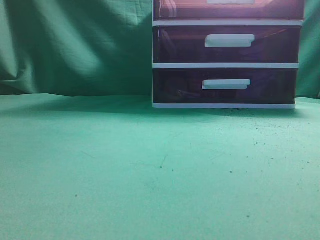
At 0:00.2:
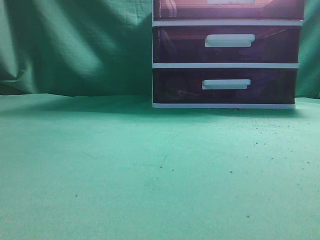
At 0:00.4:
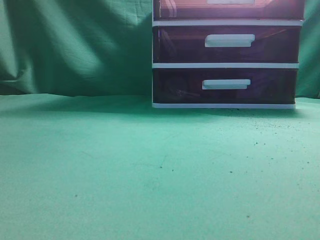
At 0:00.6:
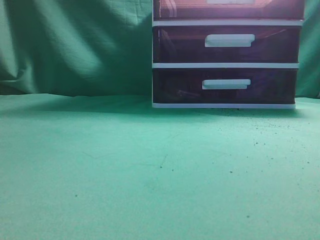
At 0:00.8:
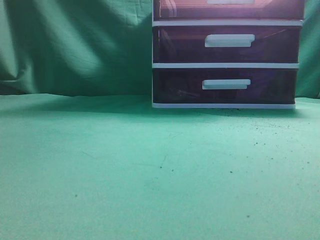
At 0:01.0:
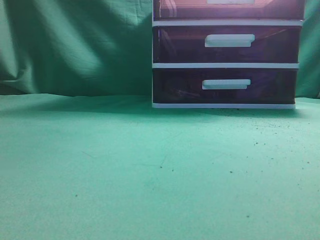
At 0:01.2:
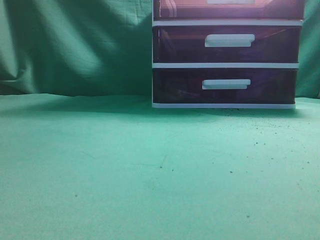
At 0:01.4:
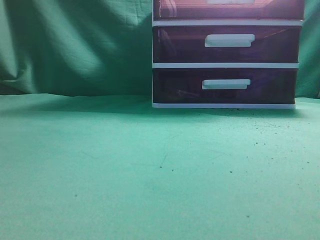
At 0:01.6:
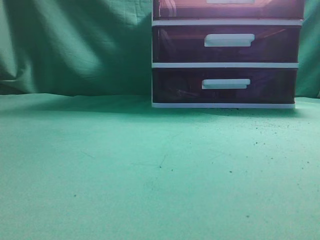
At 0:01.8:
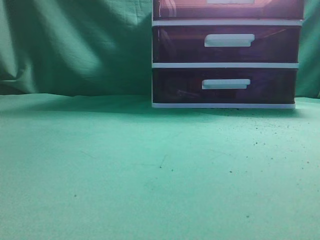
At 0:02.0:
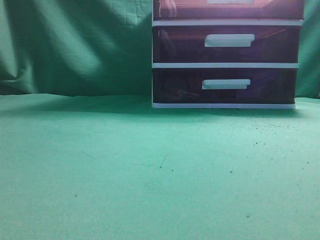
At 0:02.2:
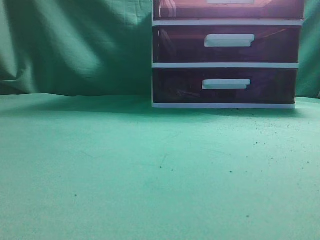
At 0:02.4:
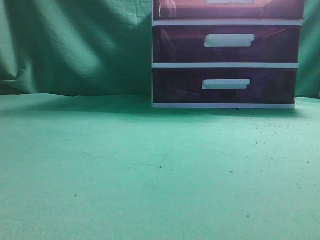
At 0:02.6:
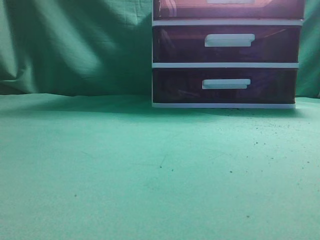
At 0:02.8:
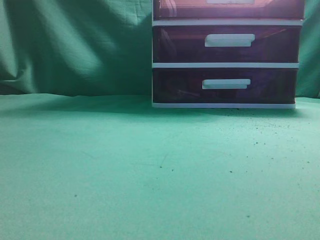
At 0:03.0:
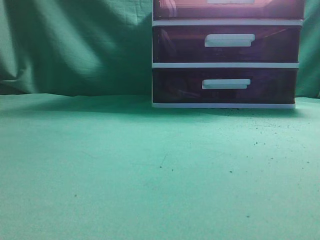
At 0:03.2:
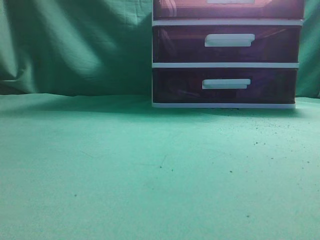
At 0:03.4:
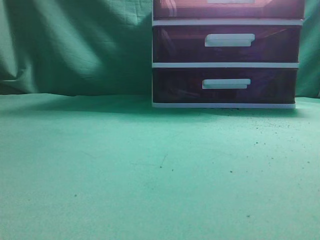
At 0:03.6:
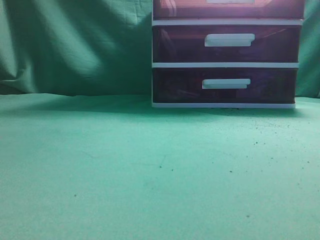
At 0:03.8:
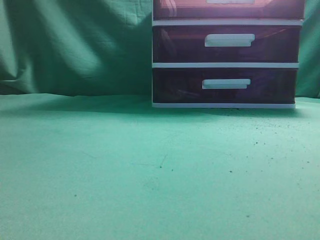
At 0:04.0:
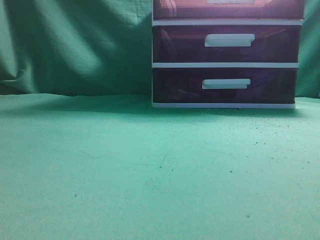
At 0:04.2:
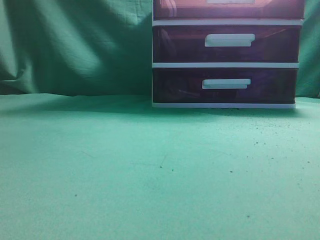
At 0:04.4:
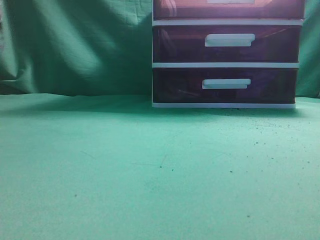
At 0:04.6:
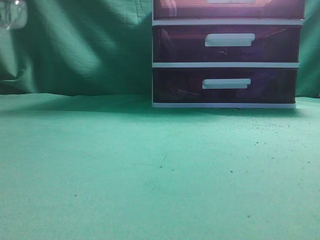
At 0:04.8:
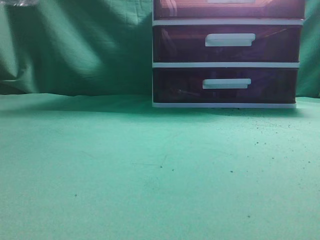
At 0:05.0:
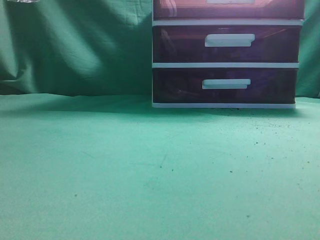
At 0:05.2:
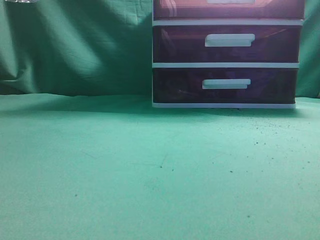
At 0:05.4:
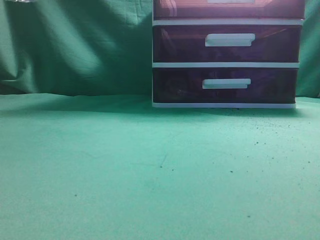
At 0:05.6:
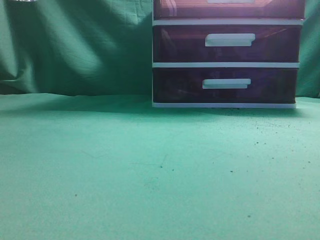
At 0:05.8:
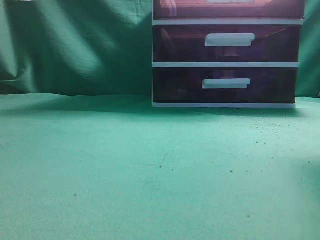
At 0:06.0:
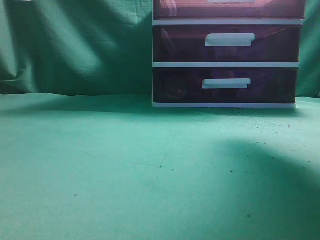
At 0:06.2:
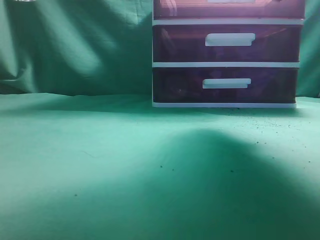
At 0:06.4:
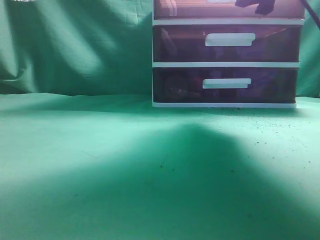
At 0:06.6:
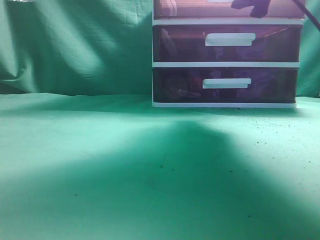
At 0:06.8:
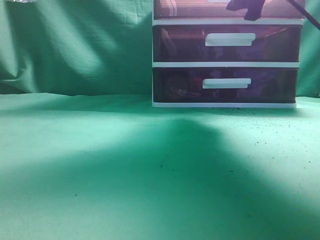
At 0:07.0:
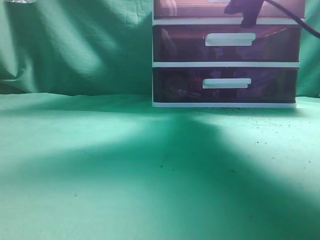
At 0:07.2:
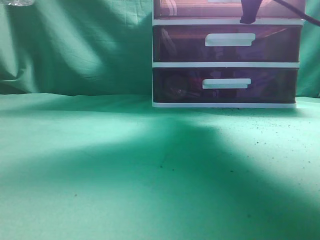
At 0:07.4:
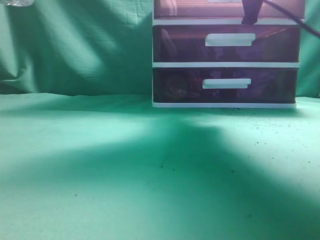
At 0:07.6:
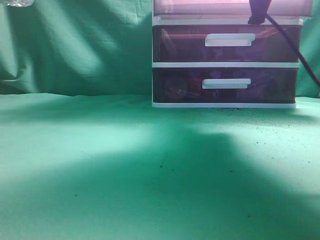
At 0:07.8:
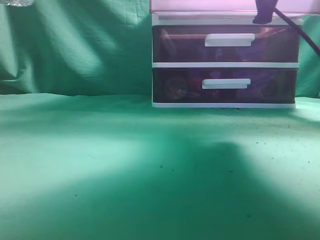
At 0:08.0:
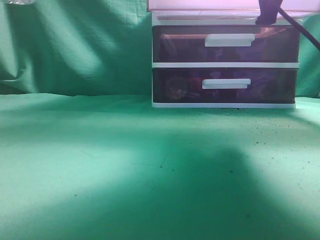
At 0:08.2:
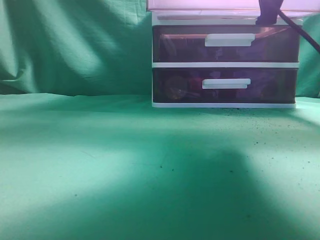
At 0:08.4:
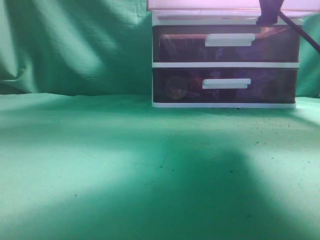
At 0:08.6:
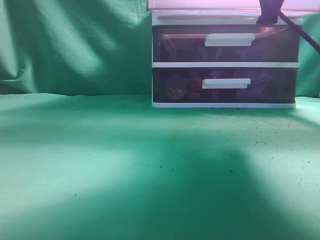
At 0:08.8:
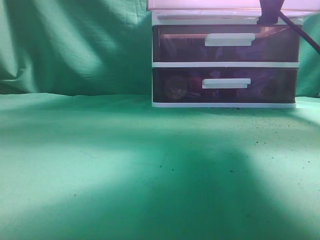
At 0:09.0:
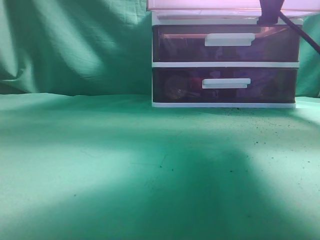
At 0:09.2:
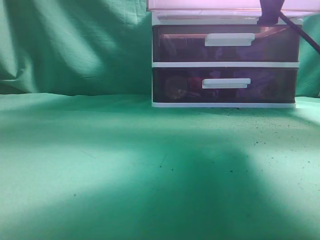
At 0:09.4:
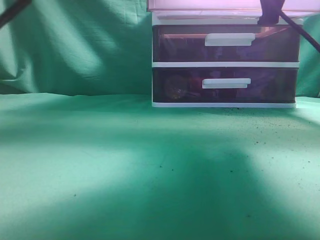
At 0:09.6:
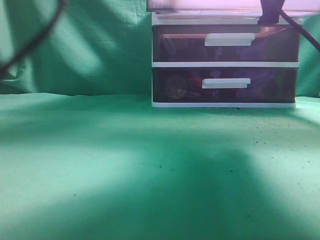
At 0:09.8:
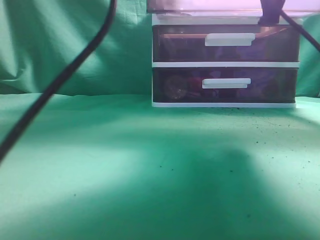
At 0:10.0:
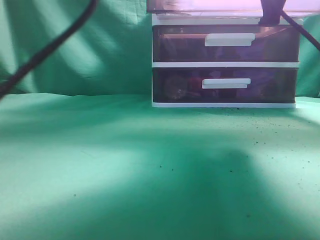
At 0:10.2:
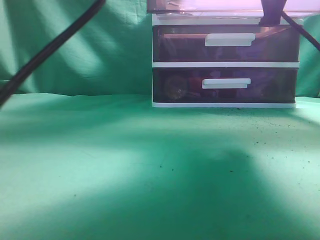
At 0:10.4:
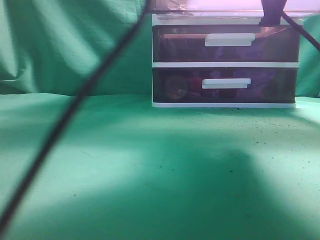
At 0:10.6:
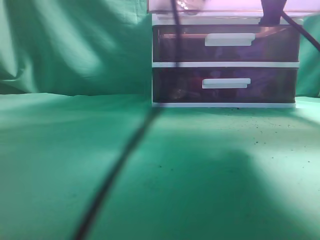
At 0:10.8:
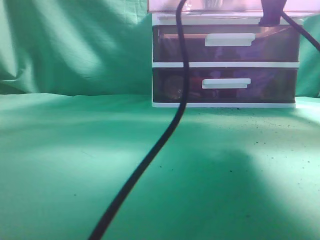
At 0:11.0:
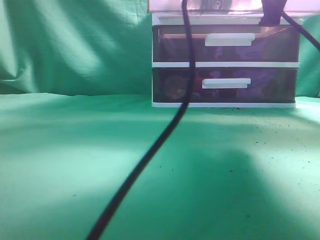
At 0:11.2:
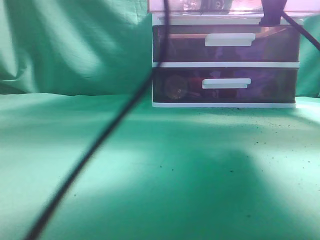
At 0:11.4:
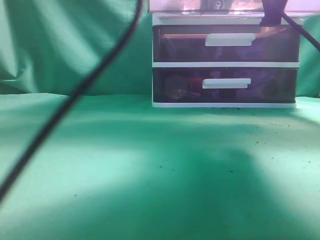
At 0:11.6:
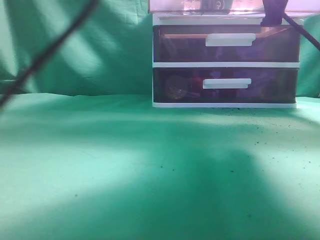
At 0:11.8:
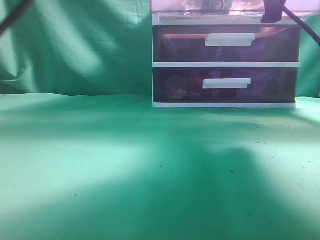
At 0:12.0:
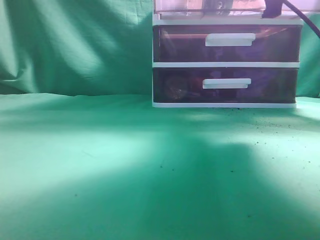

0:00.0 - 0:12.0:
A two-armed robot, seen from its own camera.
Task of the whole recording: place the water bottle into the drawer.
Step, 0:00.0 - 0:08.4: Open the drawer.
Step, 0:08.8 - 0:11.0: Place the water bottle inside the drawer.
0:04.4 - 0:06.0: The left gripper shifts about 10 cm backward, to the right and upward, while the right gripper shifts some 30 cm forward and upward, and opens up.
0:06.0 - 0:07.6: The right gripper heads downward and to the left, covering roughly 10 cm, and closes its fingers.
0:07.6 - 0:09.0: The left gripper travels upward, to the right and forward by roughly 25 cm, while the right gripper shifts roughly 10 cm backward.
0:09.0 - 0:10.4: The left gripper travels downward, to the right and forward by roughly 15 cm, and opens its fingers.
0:10.4 - 0:12.0: The left gripper goes about 20 cm backward and to the left, and closes up.

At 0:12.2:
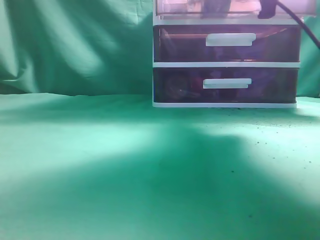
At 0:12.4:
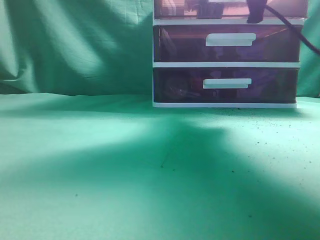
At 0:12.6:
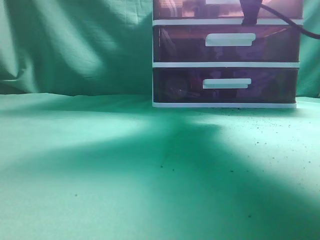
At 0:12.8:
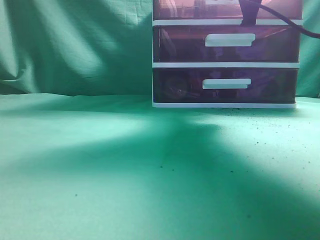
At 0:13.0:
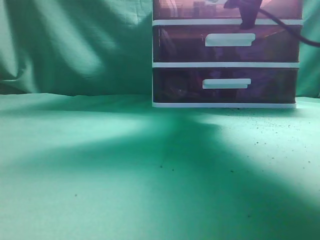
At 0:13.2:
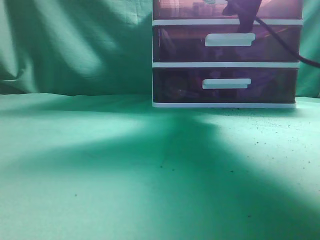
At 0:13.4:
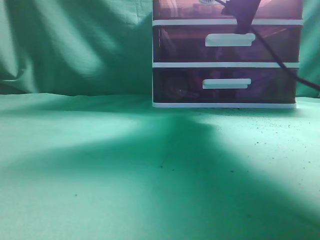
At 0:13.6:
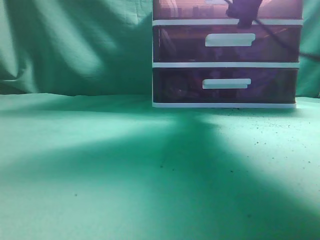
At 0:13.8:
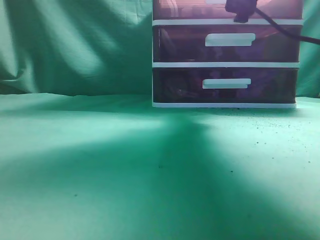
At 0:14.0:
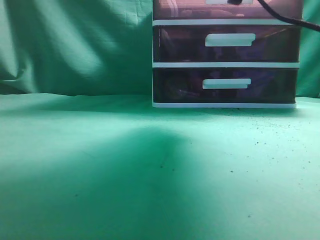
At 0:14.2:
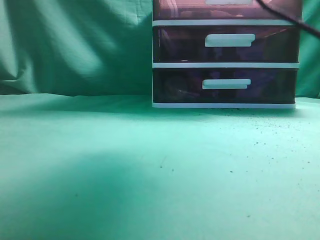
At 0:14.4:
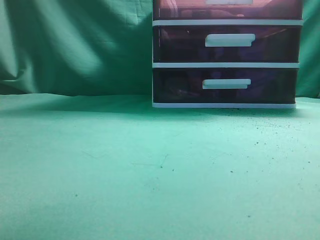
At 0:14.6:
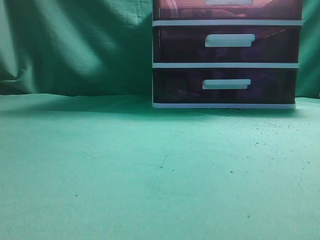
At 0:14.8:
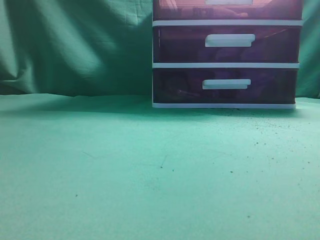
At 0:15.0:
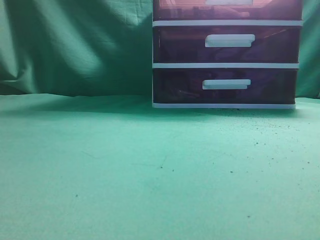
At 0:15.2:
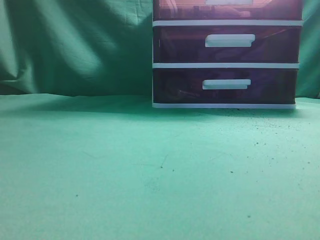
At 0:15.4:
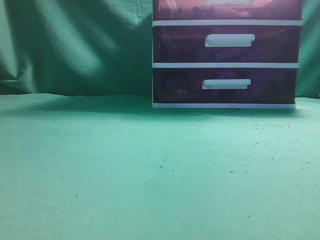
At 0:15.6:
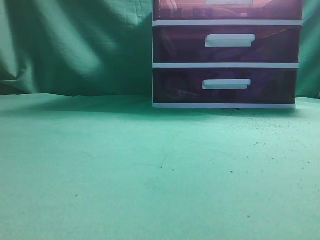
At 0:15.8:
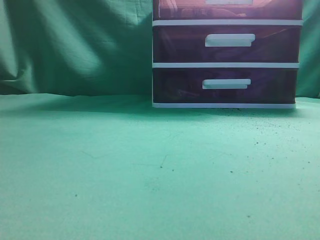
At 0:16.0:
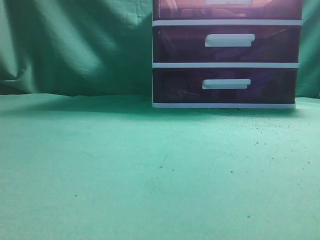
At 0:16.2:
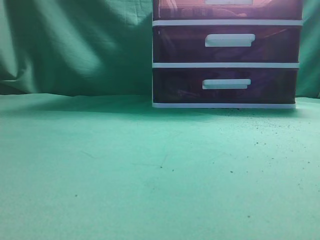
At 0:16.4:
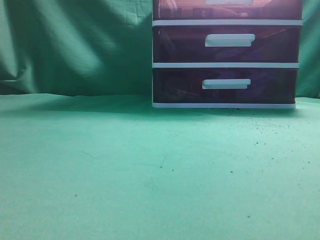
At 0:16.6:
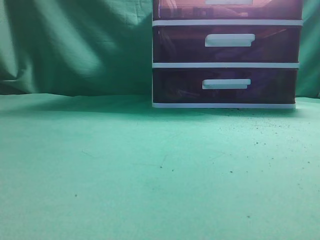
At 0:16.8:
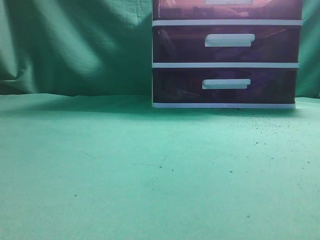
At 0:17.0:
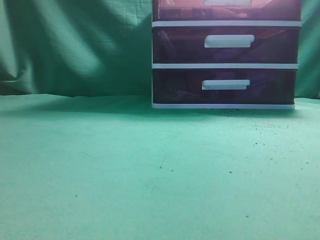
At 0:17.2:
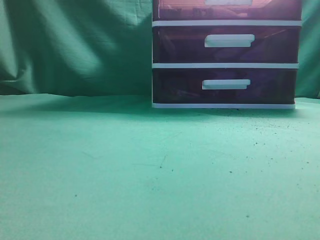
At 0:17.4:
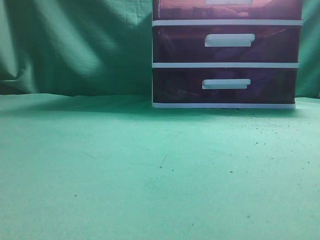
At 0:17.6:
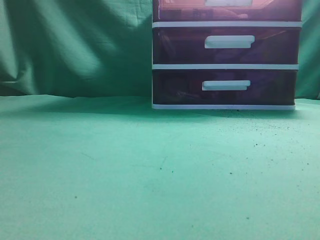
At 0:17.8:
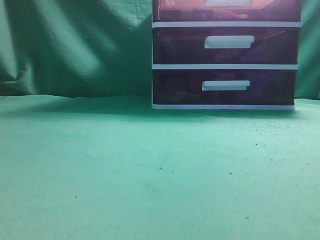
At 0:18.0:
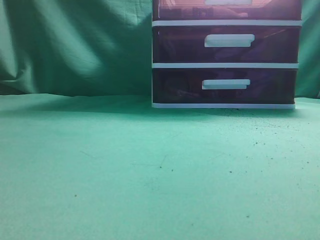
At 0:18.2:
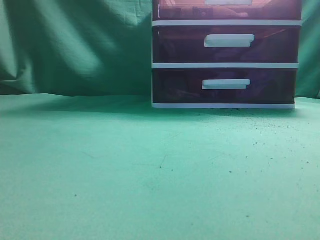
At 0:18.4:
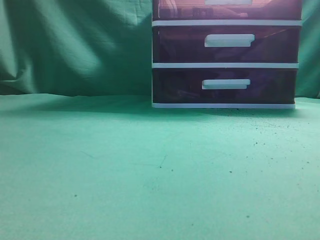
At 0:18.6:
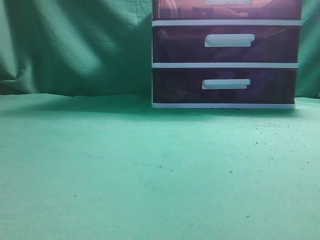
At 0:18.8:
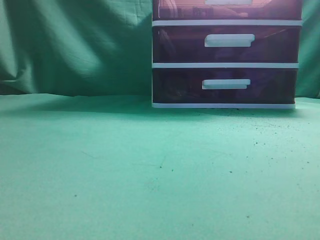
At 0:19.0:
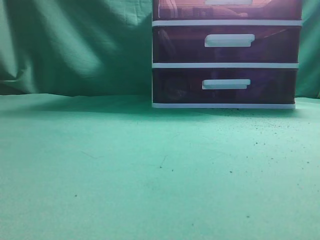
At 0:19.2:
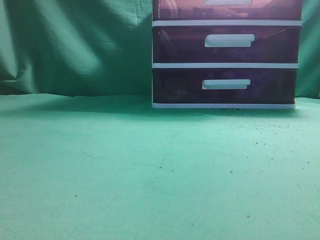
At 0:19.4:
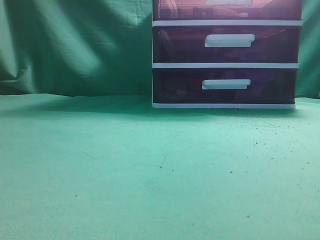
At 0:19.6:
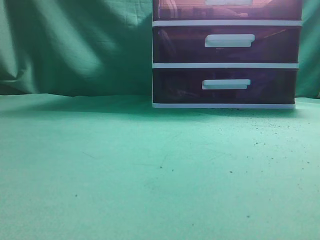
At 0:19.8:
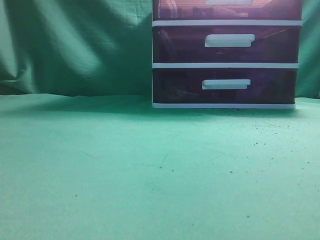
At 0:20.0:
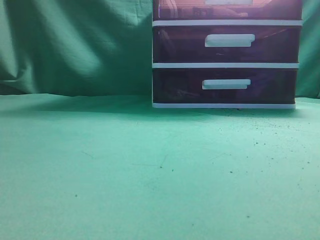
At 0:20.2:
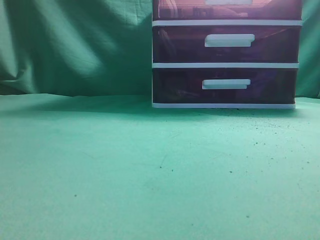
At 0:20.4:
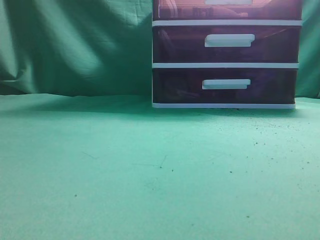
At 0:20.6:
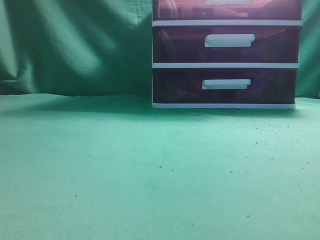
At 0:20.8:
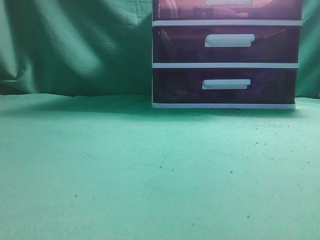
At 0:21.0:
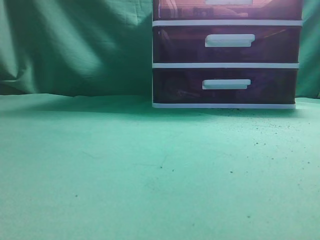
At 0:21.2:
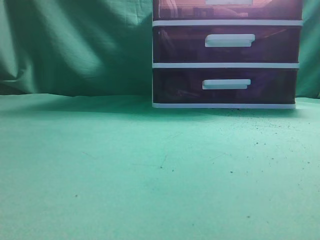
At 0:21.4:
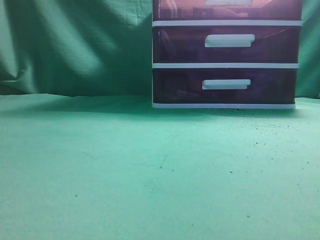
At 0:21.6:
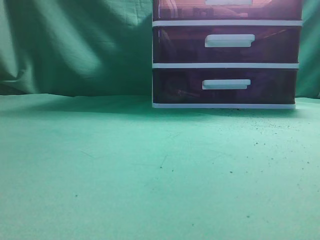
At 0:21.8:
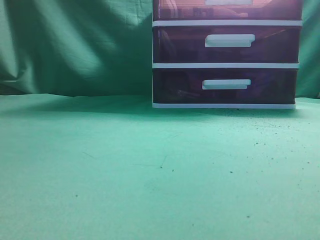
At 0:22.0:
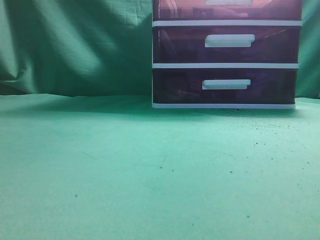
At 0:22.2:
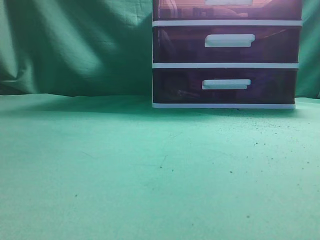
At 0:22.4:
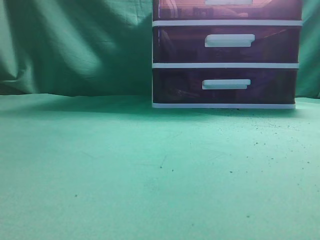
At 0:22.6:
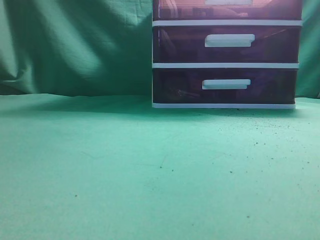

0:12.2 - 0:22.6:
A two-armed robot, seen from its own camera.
Task of the whole recording: place the water bottle into the drawer.
Step, 0:12.2 - 0:14.0: Close the drawer.
0:12.2 - 0:13.6: The left gripper changes place by about 5 cm; the right gripper opens.
0:13.6 - 0:15.2: The left gripper heads backward, to the left and downward, covering some 20 cm. Meanwhile the right gripper goes some 35 cm backward and upward, and closes its fingers.
